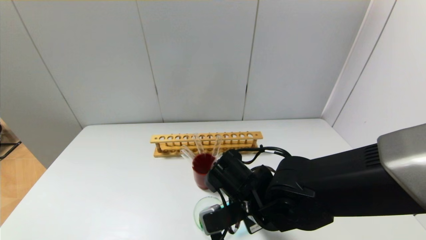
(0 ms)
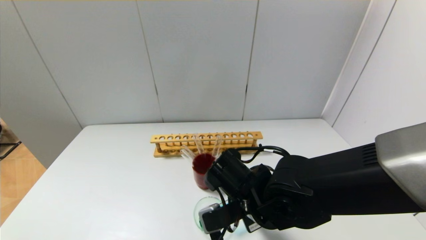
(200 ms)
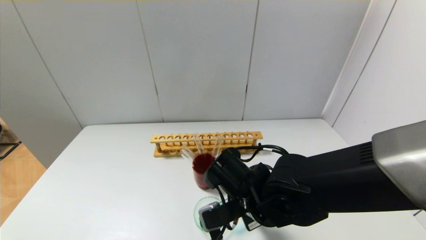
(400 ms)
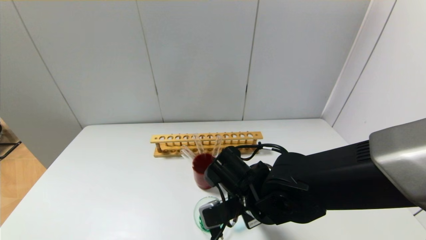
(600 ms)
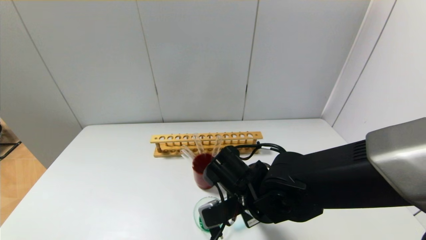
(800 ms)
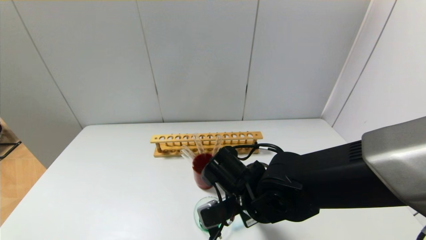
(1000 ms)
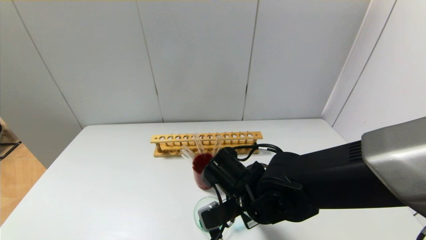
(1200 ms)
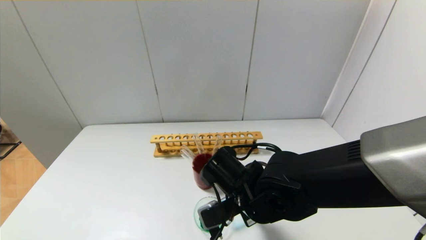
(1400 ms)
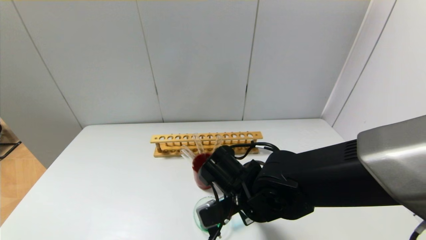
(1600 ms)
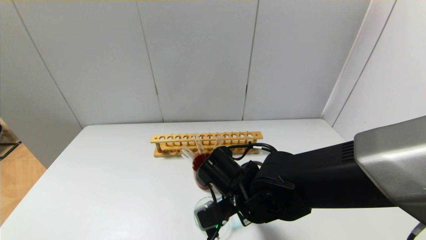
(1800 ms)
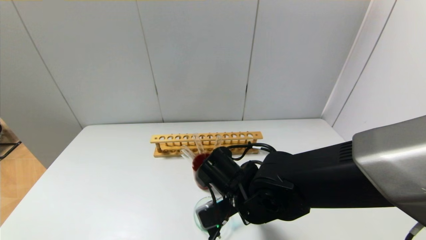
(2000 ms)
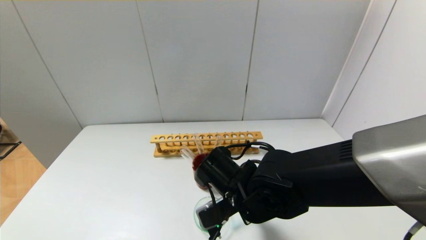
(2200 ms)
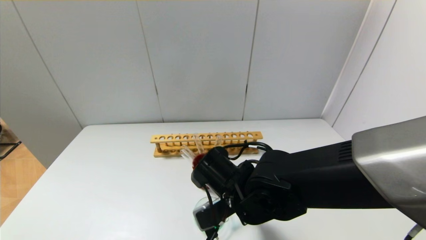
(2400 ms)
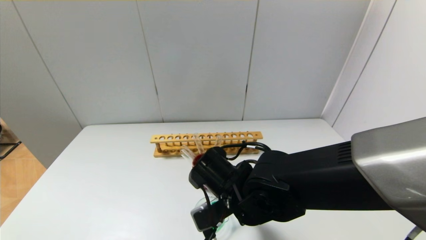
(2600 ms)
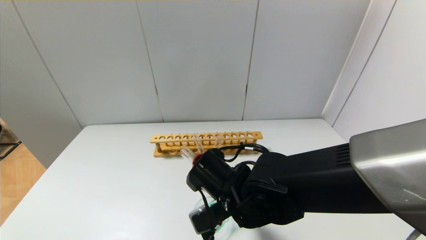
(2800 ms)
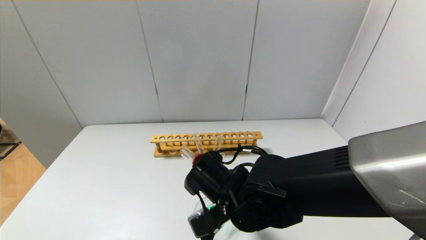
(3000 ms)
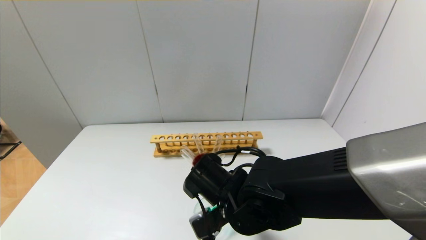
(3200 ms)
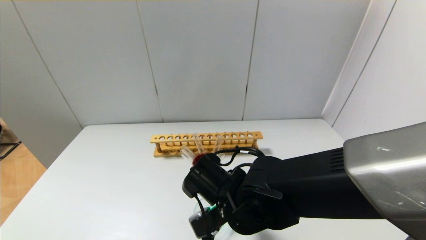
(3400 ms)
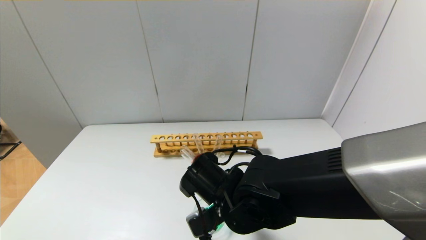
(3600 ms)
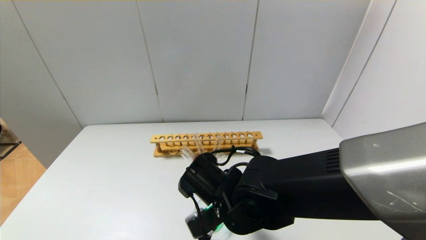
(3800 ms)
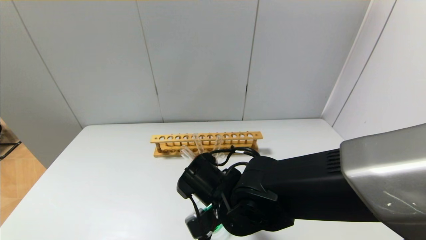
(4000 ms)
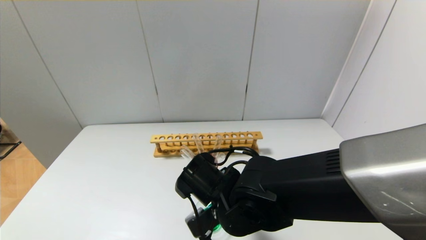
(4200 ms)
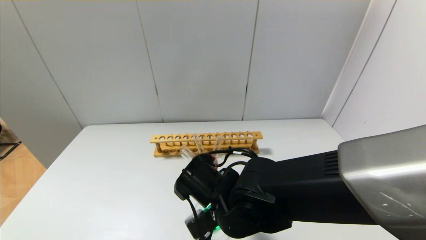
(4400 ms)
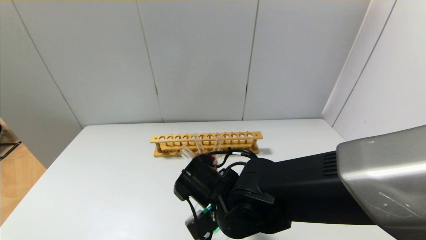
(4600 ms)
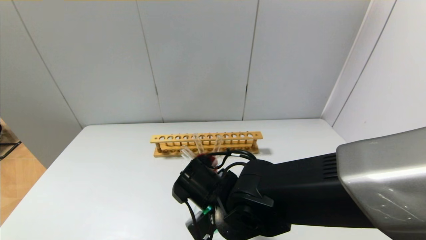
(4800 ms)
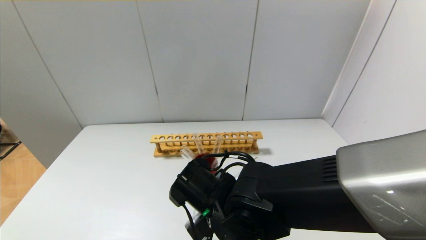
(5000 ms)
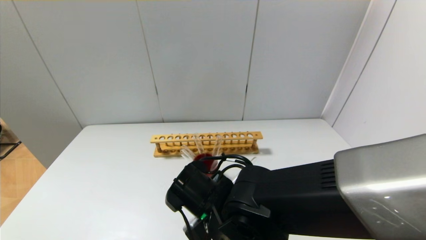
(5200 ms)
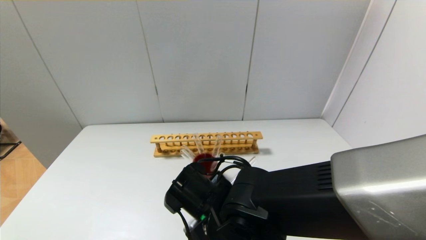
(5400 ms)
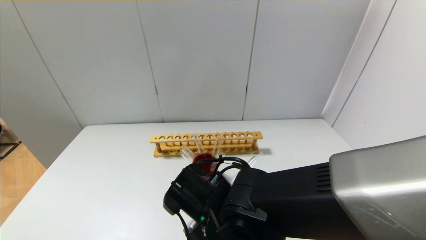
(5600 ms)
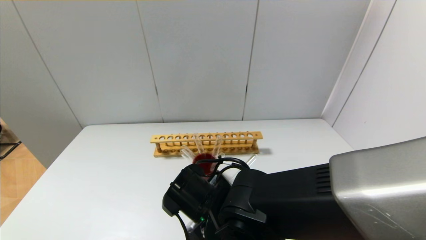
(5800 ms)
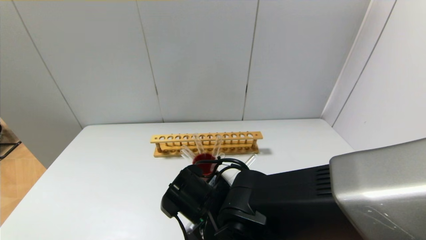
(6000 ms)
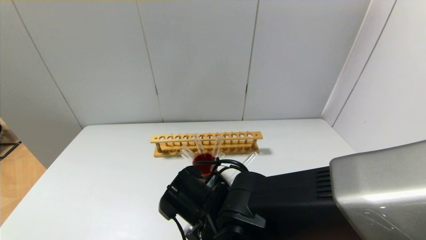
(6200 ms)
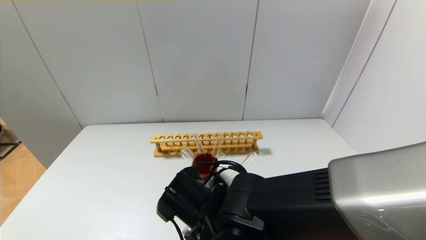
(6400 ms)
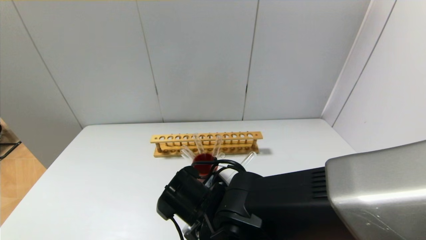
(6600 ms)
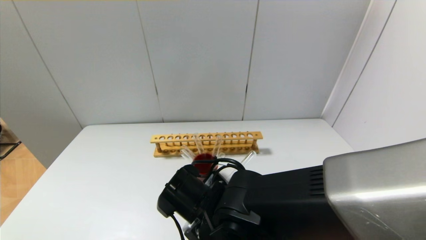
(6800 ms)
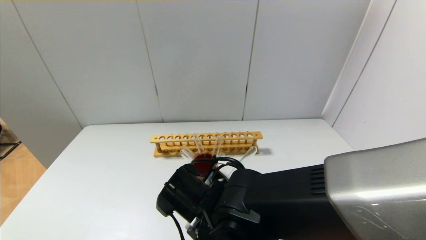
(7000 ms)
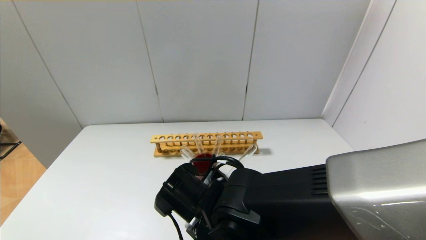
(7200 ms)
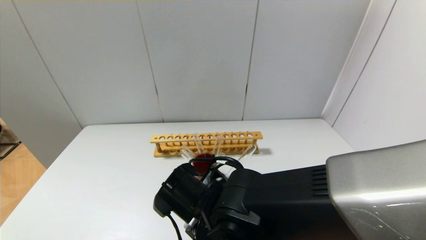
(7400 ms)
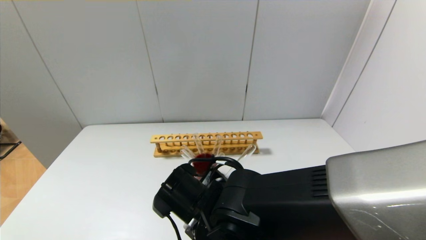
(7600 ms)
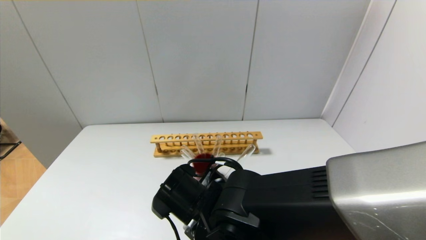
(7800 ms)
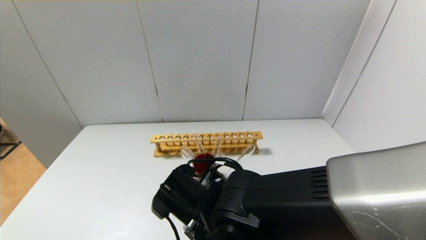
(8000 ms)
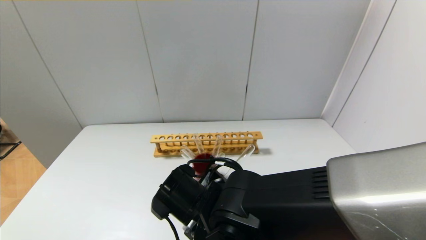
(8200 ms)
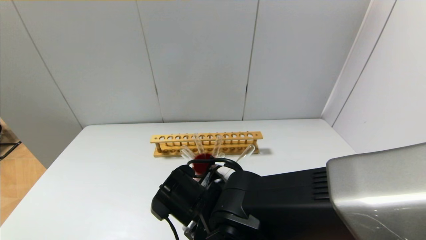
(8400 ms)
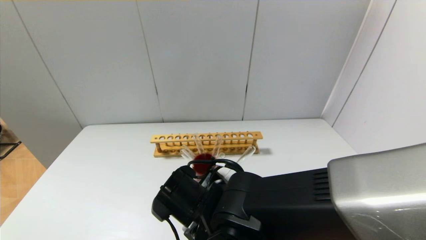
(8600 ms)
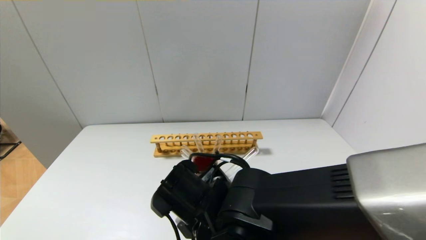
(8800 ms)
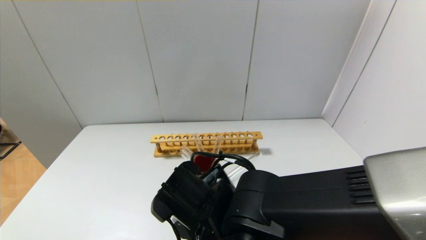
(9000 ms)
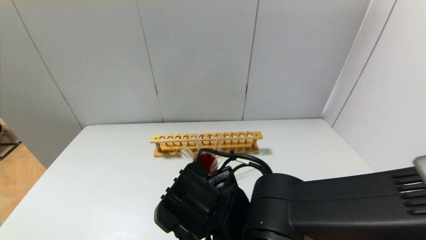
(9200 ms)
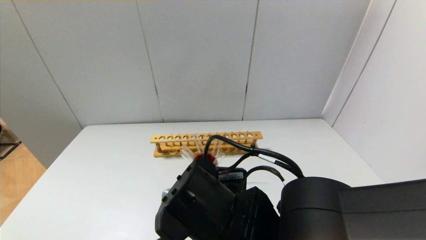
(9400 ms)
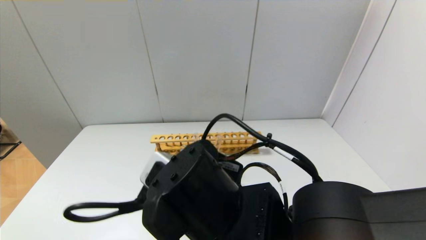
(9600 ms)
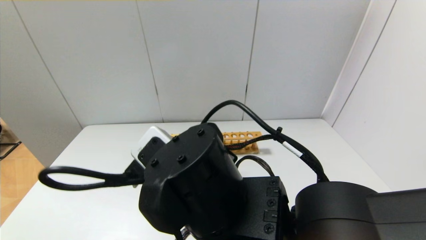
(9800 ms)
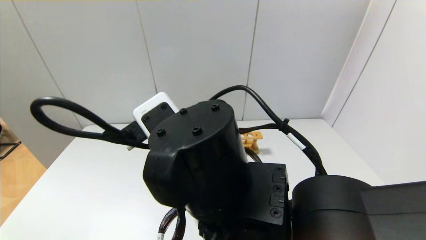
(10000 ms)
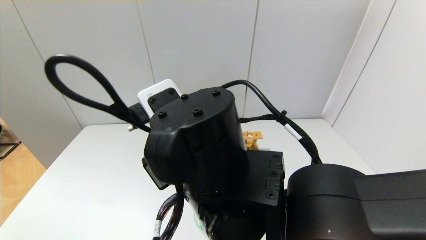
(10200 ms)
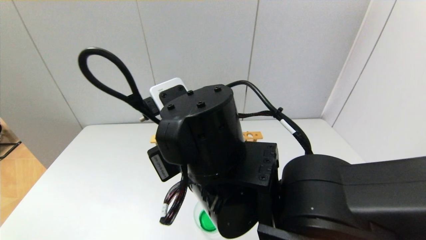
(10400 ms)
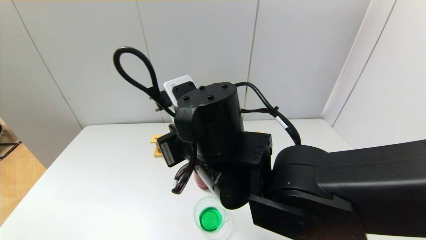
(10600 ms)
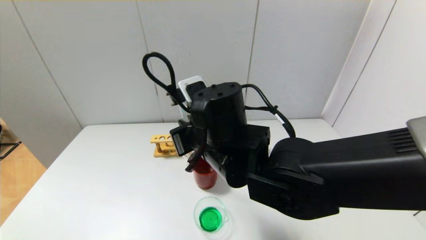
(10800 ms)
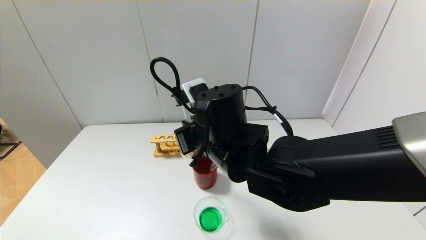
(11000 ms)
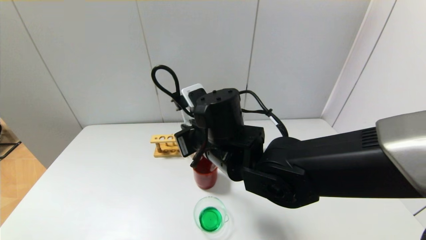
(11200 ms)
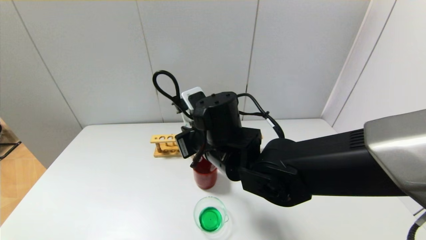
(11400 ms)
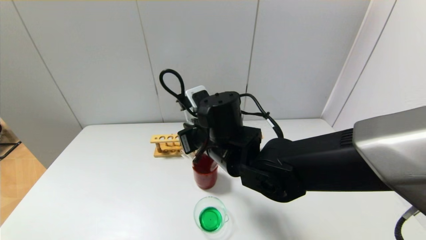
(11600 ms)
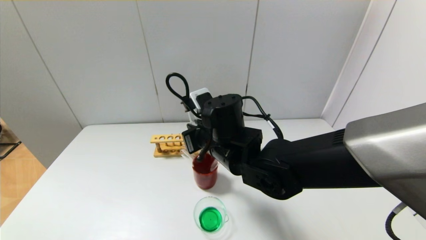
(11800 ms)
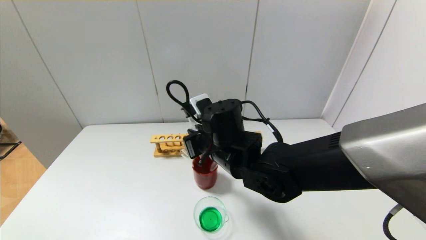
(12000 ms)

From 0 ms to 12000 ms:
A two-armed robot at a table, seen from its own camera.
Step, from 0 ms to 9000 ms: Pour the blue reagent into the graduated cylinder with the right gripper.
From 0 ms to 4400 ms: There are only small adjustments of the grippers.
From 4400 ms to 7600 ms: The grippers move only a little.
From 9000 ms to 10400 ms: The right gripper shifts about 10 cm upward.
From 10400 ms to 12000 ms: The right gripper goes some 10 cm forward and downward.

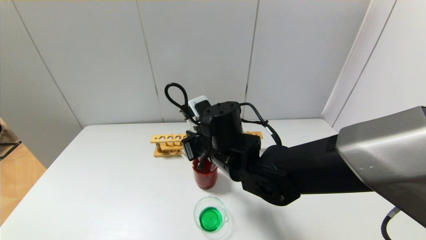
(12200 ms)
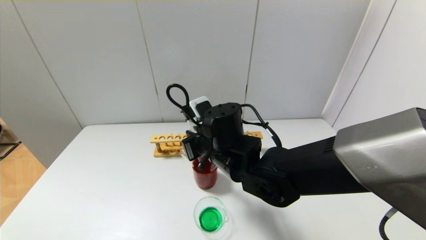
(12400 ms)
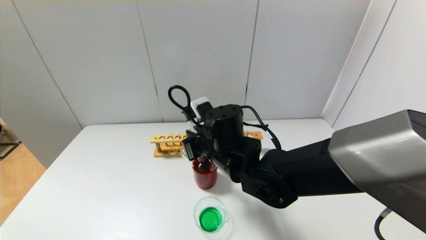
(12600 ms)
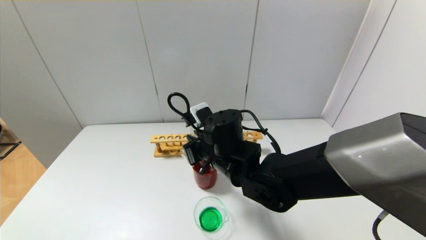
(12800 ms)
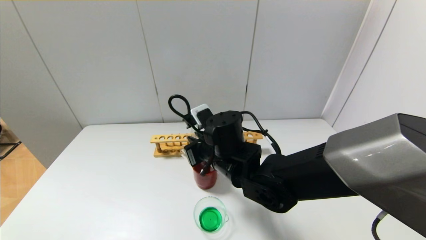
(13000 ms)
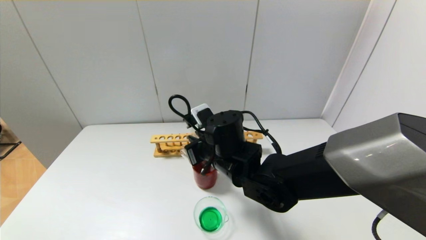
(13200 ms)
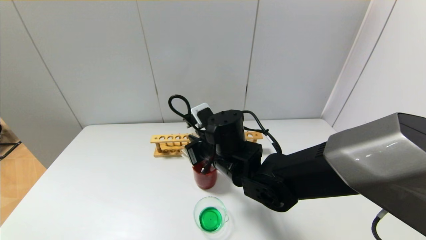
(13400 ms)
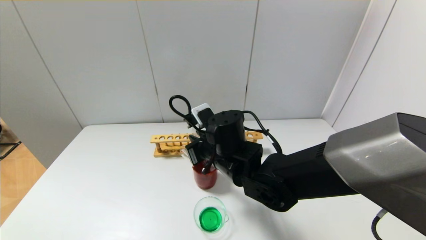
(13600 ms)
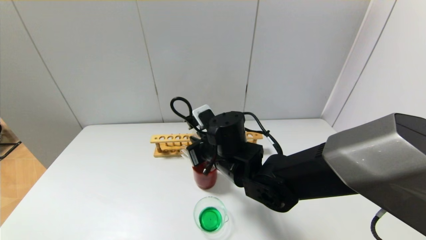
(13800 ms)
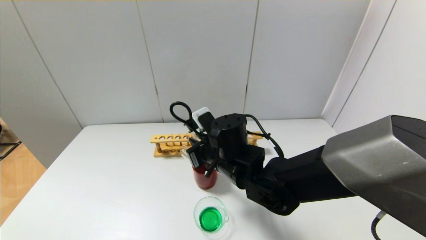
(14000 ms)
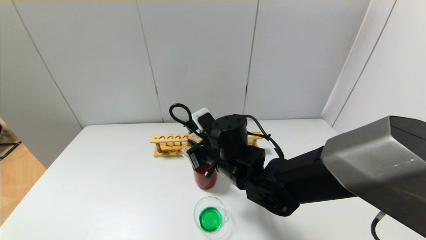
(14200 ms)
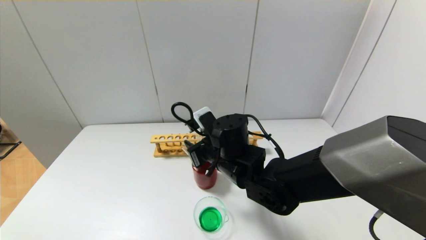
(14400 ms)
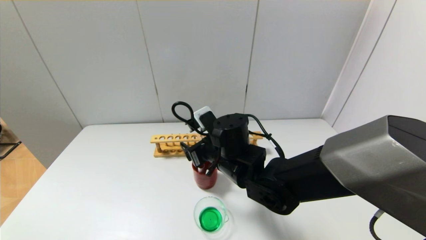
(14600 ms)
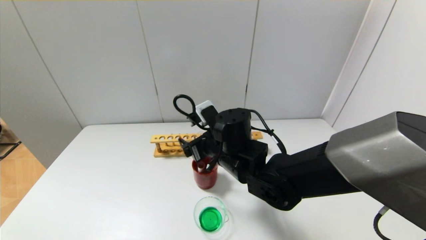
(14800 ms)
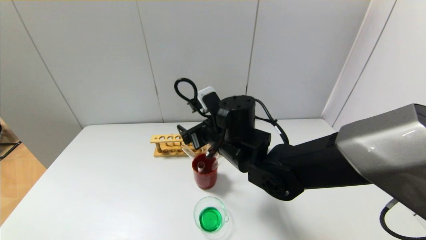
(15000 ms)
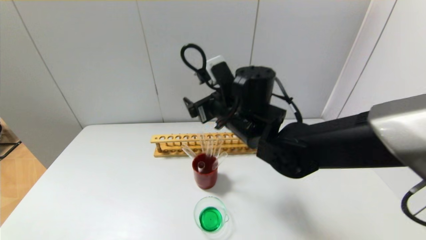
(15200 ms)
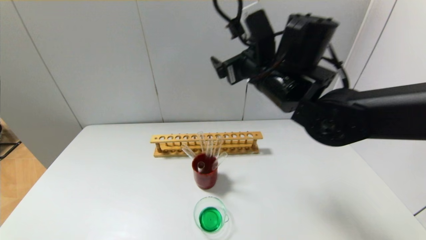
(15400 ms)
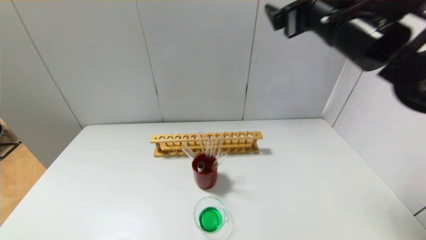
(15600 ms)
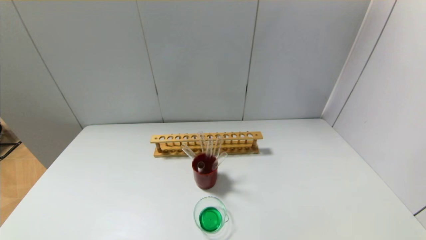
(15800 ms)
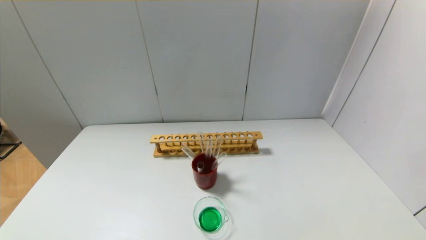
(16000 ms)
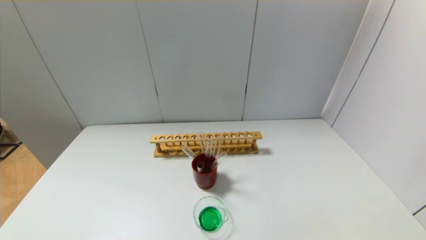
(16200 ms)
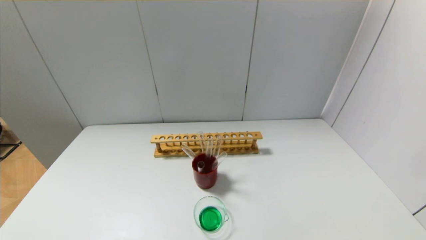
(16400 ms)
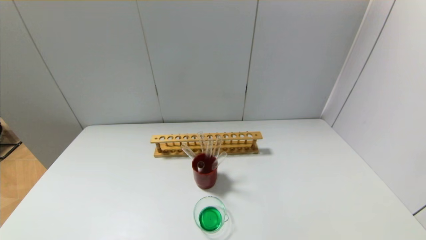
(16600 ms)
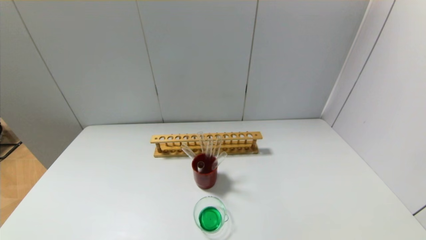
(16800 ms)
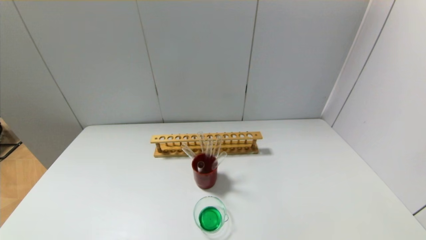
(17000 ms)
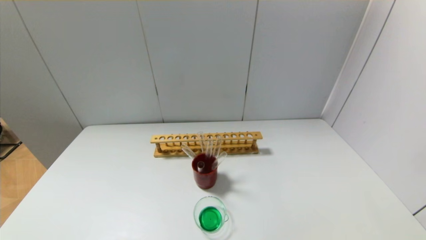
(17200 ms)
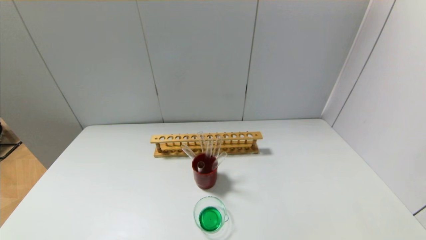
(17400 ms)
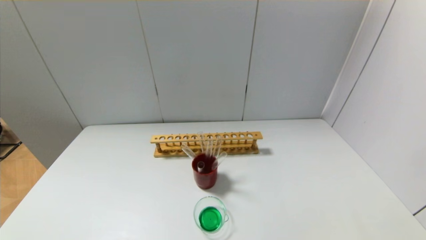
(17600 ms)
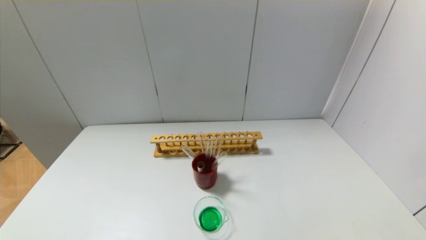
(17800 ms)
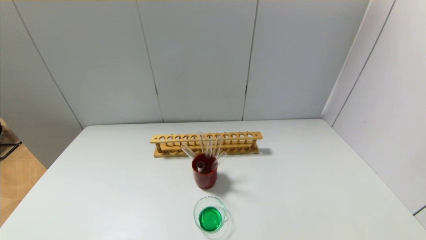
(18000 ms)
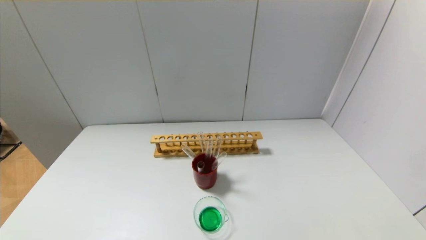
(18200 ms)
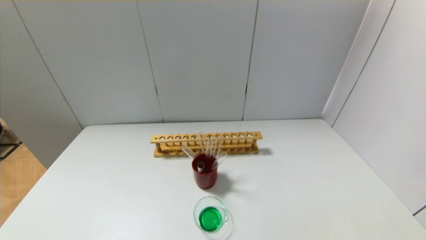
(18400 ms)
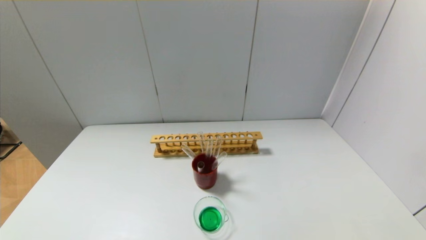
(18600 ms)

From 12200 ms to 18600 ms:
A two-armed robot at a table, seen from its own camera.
Step, from 12200 ms to 14200 ms: Place the test tube into the brown cup with the right gripper.
From 12200 ms to 13800 ms: The grippers make only small movements.
From 13800 ms to 15400 ms: The right gripper moves upward and to the right, roughly 20 cm, and opens up.
From 15400 ms to 17000 ms: The right gripper goes approximately 50 cm backward and to the right.
